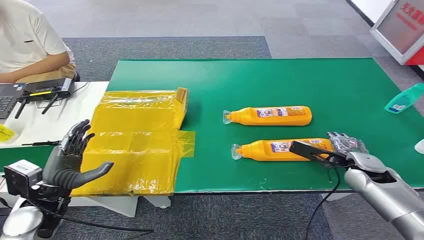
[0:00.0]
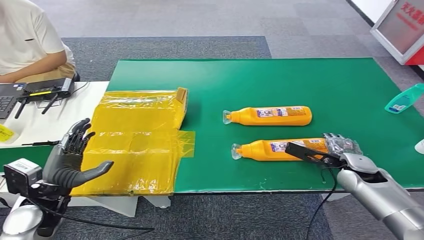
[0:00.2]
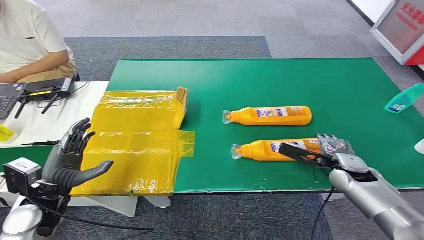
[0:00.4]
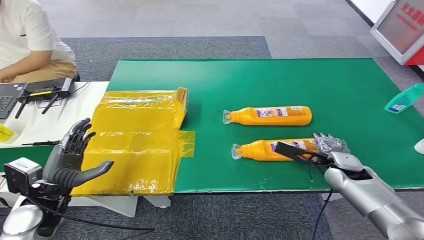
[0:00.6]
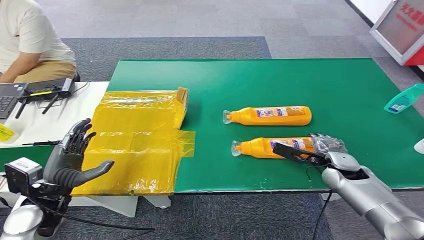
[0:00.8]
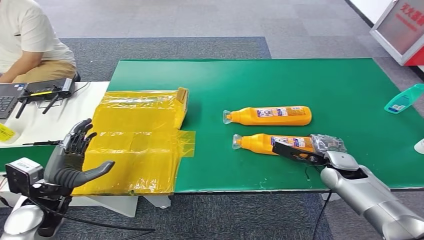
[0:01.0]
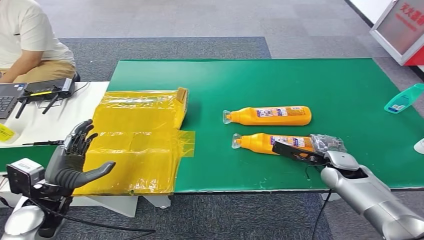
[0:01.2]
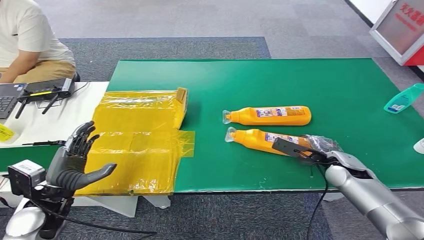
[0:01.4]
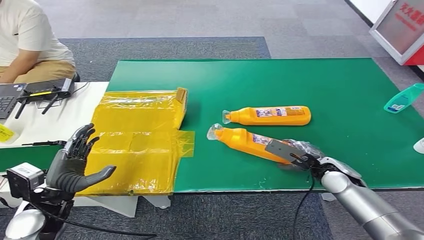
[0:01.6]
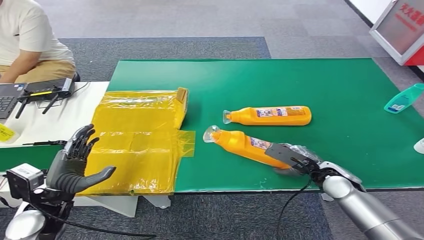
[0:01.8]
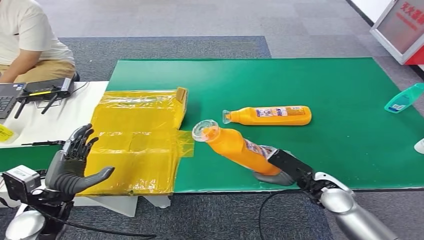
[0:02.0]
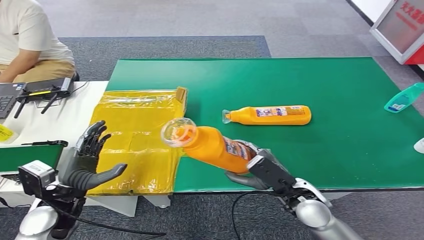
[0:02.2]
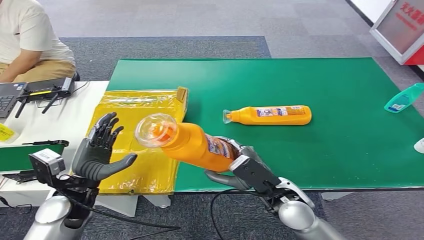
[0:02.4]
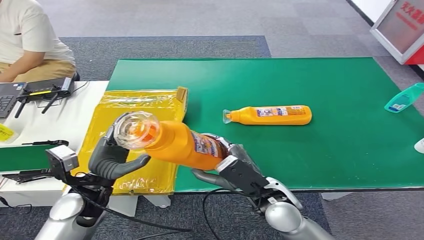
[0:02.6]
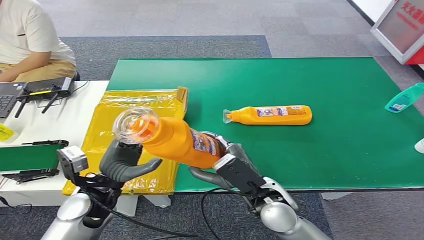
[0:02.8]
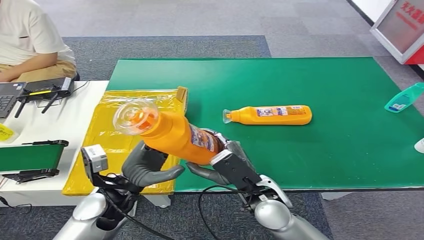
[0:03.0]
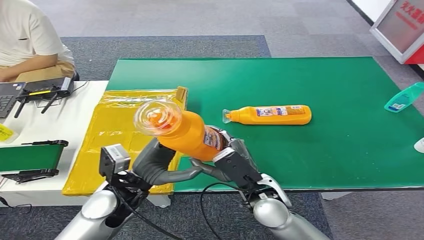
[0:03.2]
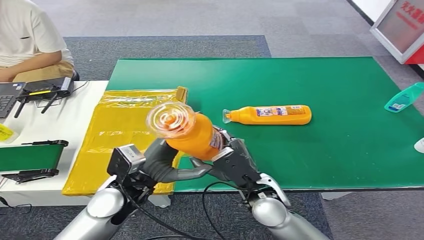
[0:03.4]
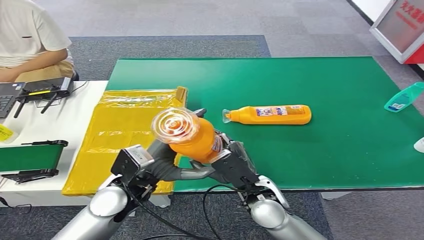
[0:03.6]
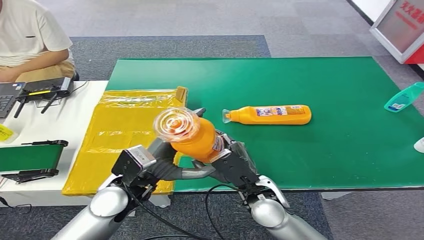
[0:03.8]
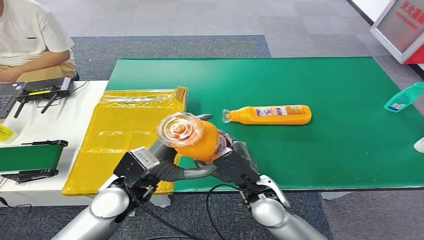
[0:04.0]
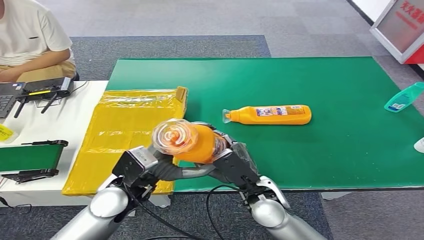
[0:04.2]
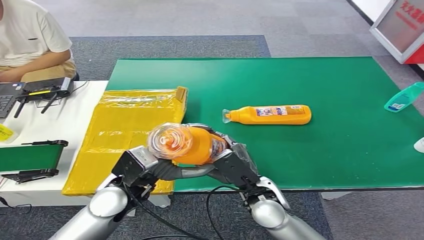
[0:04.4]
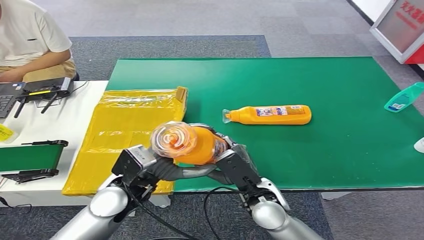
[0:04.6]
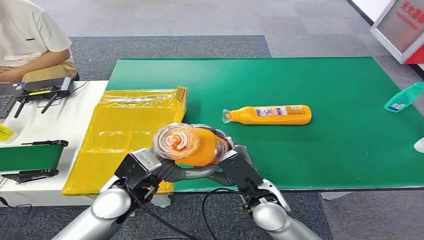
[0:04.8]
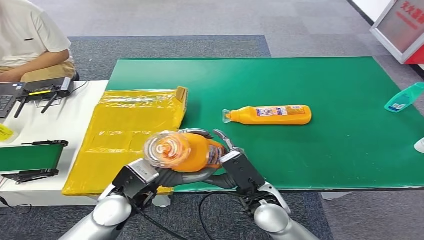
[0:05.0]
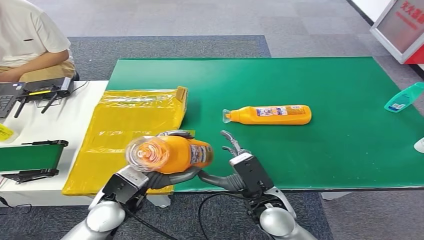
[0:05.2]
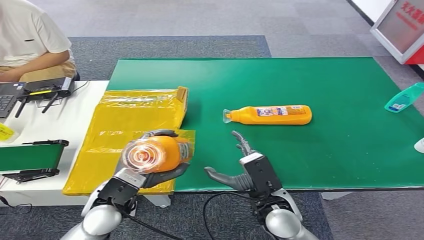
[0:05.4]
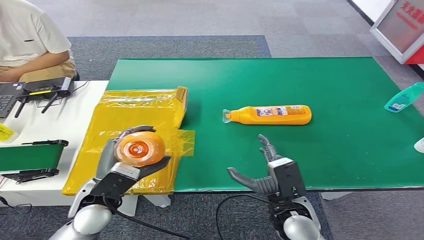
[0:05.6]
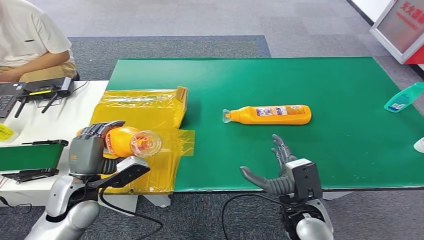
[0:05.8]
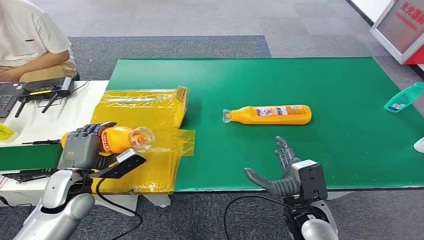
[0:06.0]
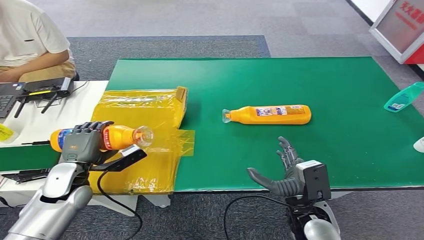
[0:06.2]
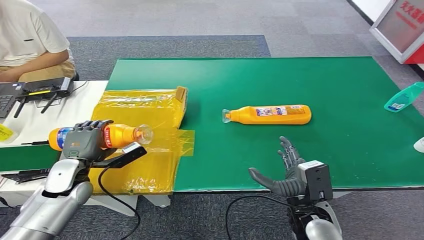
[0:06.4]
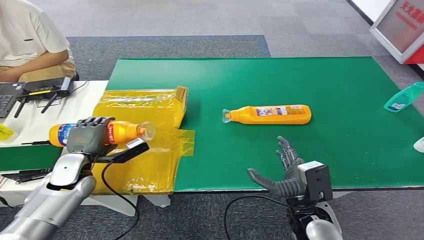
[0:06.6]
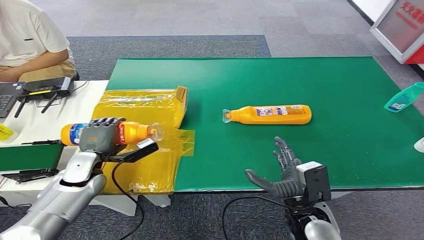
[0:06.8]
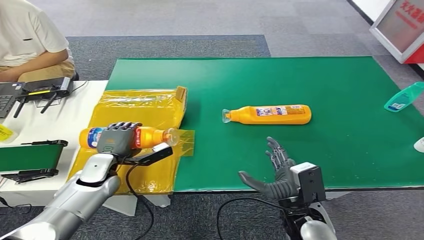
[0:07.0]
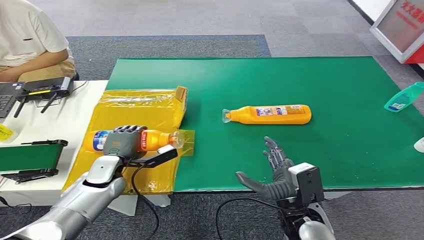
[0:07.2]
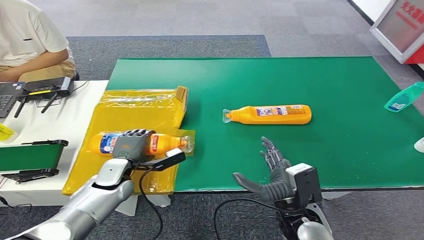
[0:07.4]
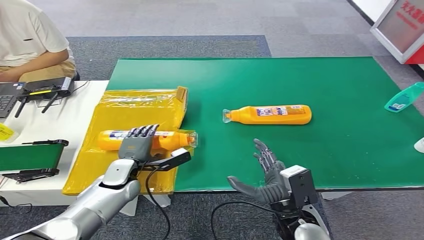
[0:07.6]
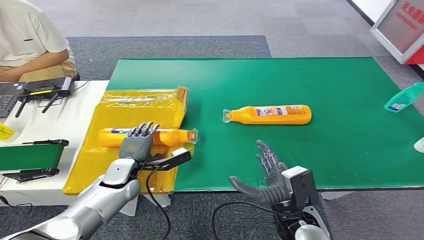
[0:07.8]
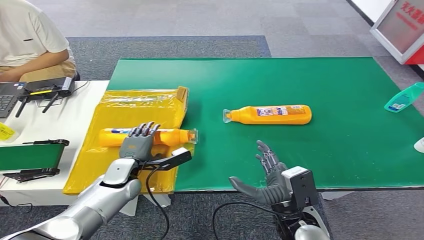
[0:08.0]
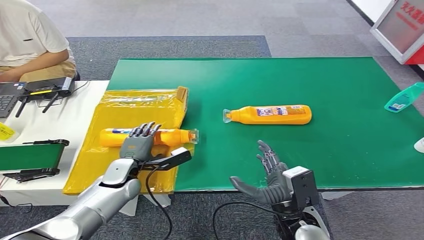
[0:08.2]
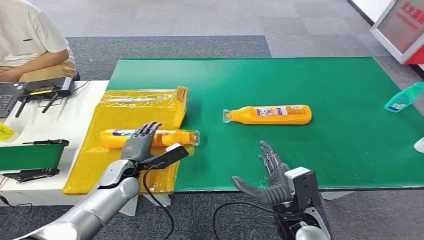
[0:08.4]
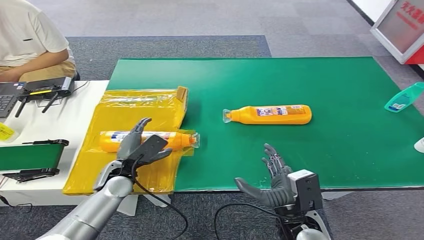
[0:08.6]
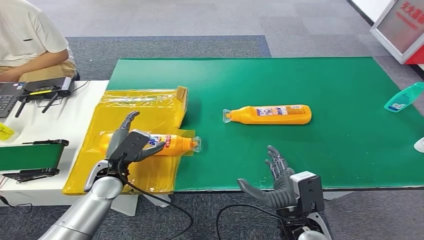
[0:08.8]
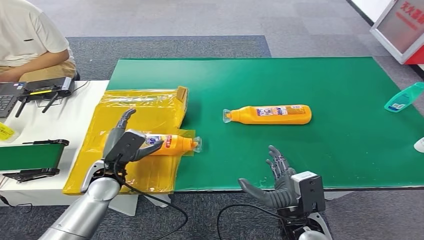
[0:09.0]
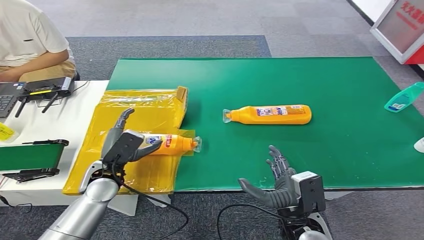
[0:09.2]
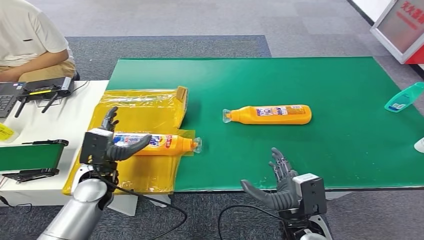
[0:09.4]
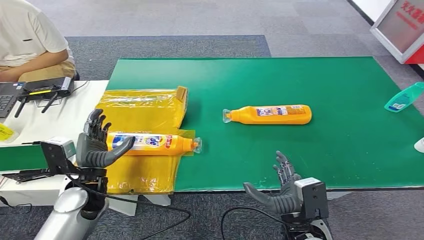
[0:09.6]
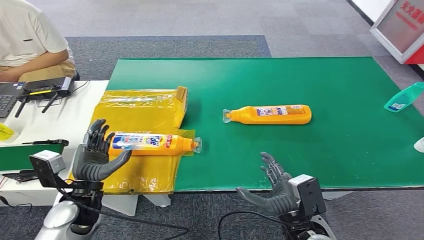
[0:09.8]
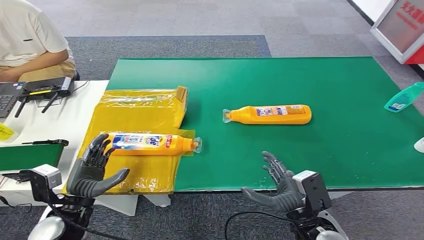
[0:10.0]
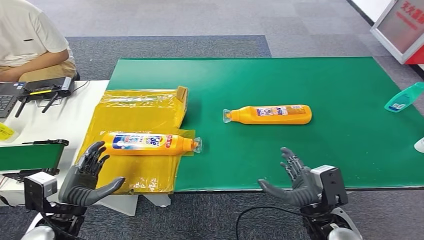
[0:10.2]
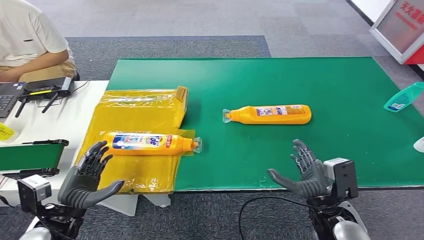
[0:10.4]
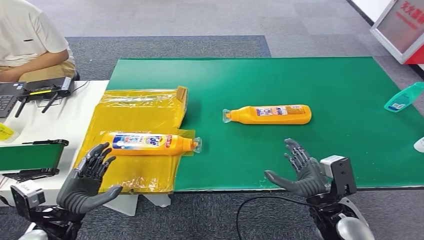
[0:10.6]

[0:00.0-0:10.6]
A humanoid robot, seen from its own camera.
Step, 0:00.0 to 0:03.6: Pick up the bottle from the table.
Step, 0:04.0 to 0:10.6: Turn the bottle to the front side.
0:03.0 to 0:04.6: The left hand changes place by roughly 5 cm.
0:04.6 to 0:06.0: The left hand is displaced to the left and downward by approximately 15 cm. Meanwhile the right hand goes some 10 cm to the right.
0:06.0 to 0:07.6: The left hand shifts approximately 15 cm to the right, downward and forward.
0:07.6 to 0:09.0: The left hand heads upward, covering approximately 5 cm.
0:09.0 to 0:10.6: The right hand shifts approximately 5 cm to the right, while the left hand is displaced backward and to the left by roughly 15 cm.
